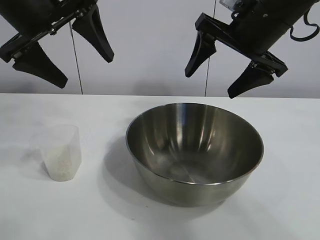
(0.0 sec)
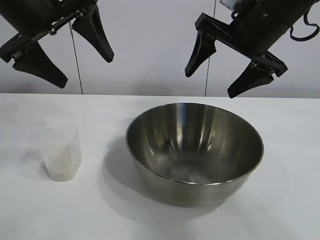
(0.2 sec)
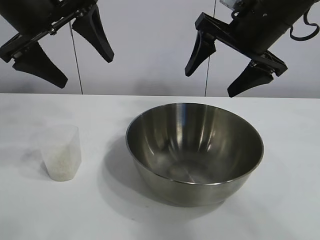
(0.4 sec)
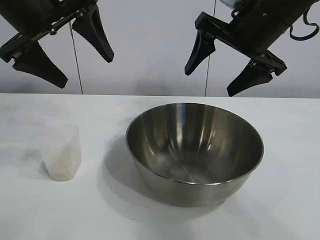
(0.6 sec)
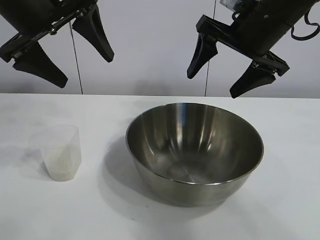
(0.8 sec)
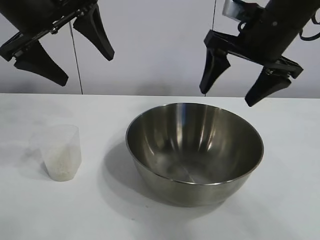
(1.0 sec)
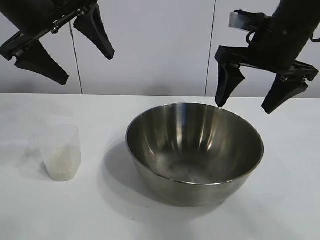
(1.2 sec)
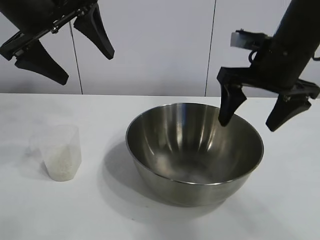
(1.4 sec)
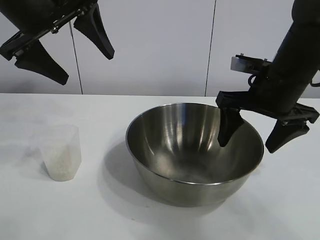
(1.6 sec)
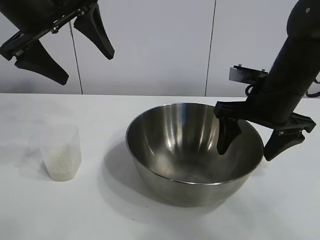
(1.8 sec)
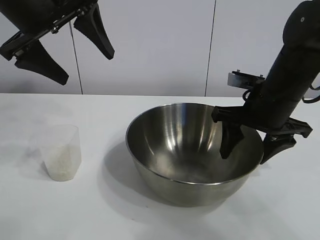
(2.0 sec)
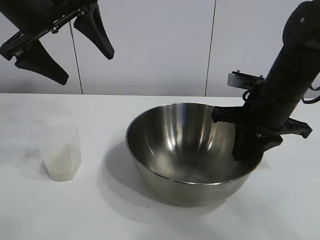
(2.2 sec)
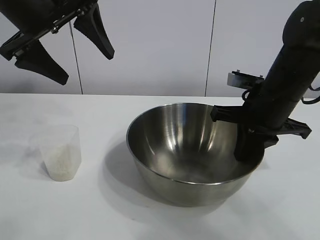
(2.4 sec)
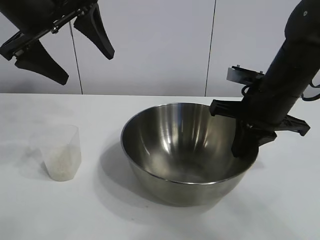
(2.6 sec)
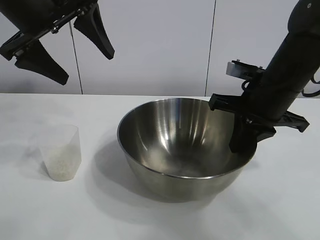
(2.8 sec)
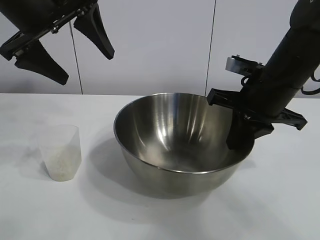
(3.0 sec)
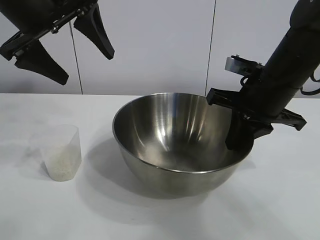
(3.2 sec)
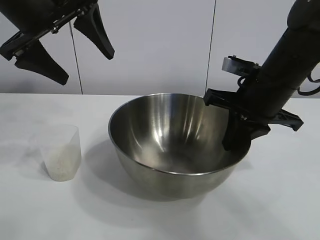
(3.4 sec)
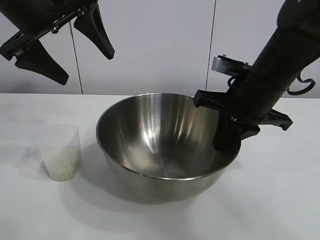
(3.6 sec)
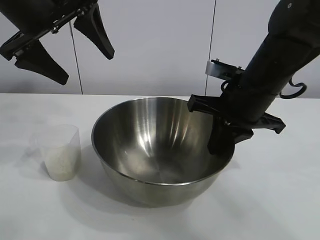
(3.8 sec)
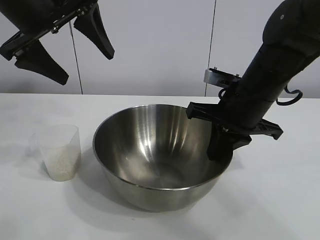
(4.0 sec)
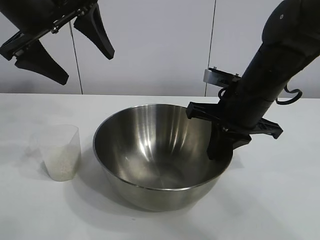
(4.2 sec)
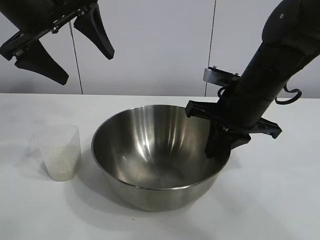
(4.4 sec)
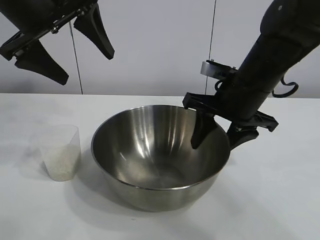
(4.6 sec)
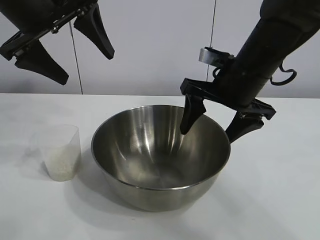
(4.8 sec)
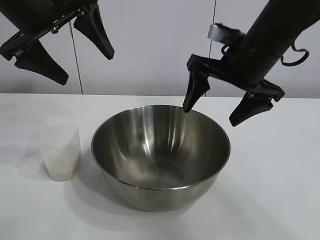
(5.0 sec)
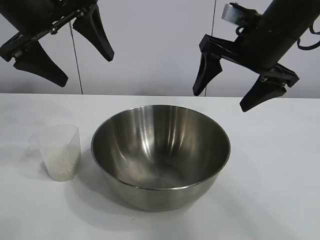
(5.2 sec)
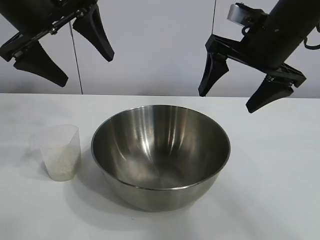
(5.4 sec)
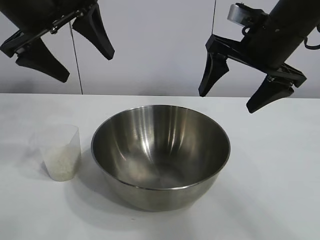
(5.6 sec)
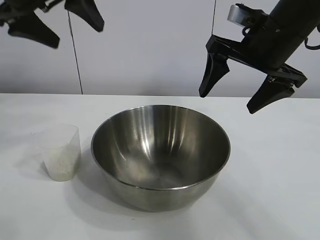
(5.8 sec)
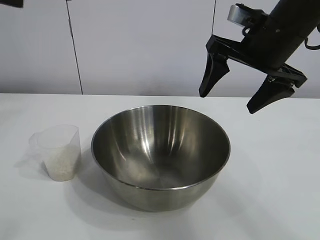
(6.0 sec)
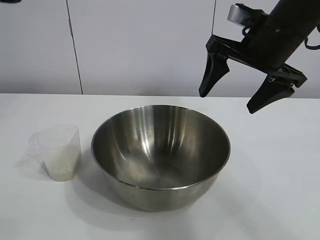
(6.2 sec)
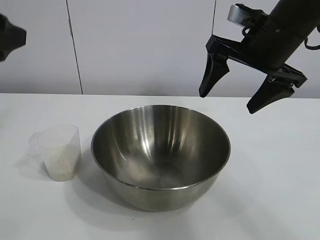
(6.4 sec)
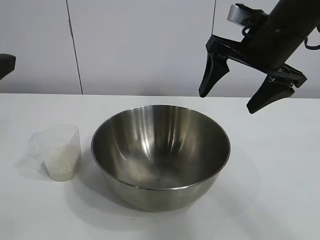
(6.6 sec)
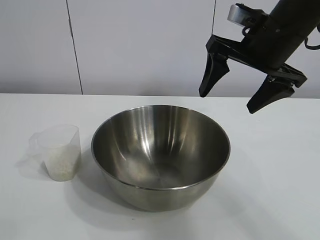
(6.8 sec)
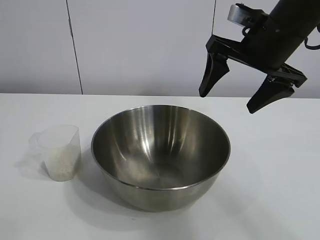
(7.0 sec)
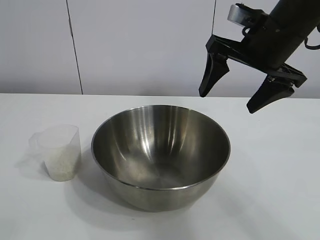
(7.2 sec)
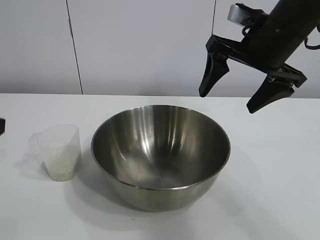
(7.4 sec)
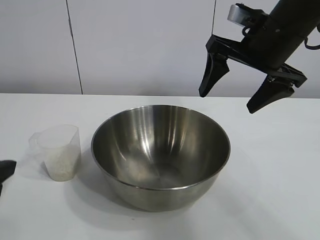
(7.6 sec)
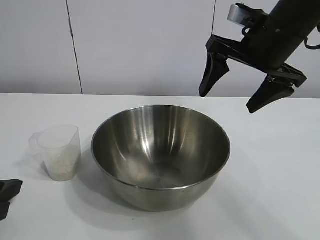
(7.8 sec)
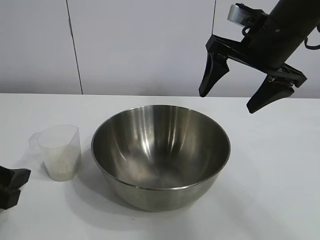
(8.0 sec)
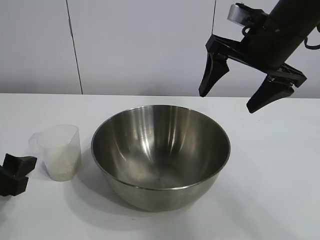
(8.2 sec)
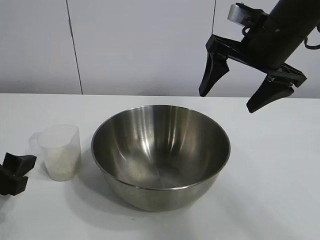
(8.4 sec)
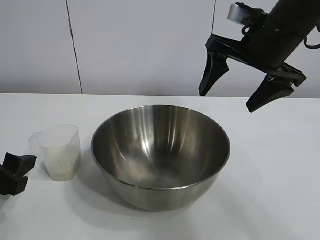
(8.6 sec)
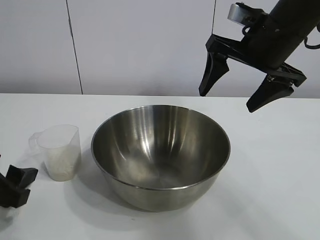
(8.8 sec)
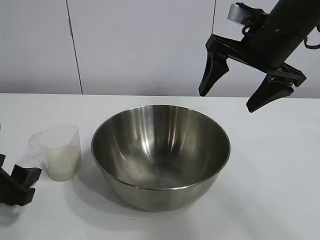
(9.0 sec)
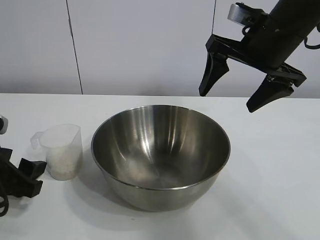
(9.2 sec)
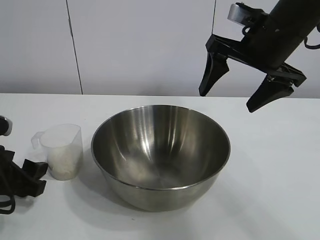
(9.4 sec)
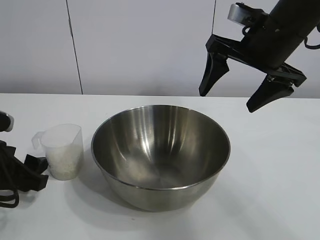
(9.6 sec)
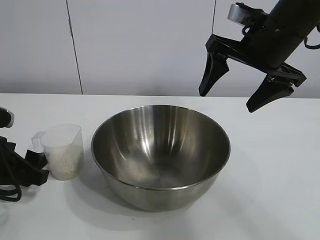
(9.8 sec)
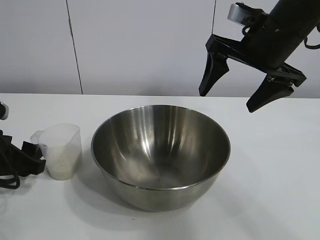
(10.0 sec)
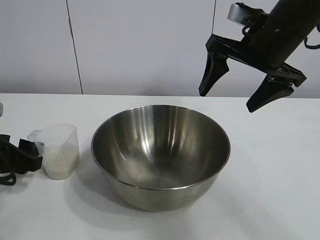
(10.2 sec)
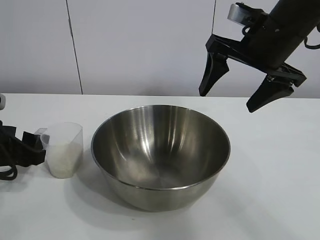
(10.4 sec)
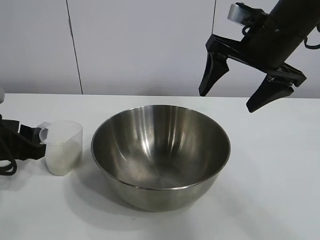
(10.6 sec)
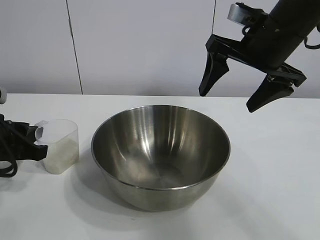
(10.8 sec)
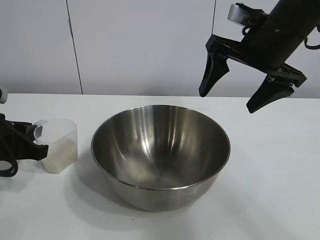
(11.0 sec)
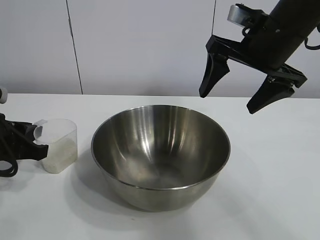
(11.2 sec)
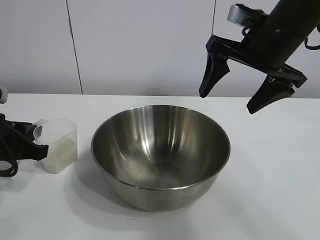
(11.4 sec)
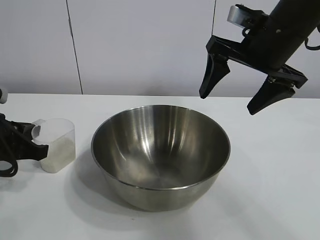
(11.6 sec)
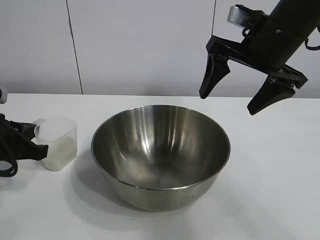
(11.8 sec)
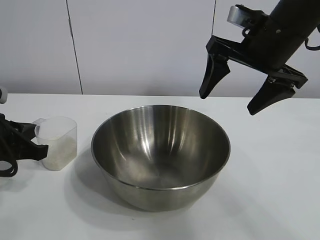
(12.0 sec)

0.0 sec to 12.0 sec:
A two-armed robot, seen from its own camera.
Task of the whole recording: the right gripper grasp the rice container and place it in the center of the table, the left gripper grasp the rice scoop and pour the rice into the rice container.
Step, 0.8 sec to 4.4 sec: Move the bowl in the center of view with right gripper.
Step, 4.6 sec to 11.8 sec: Grasp the cup with rice in it with left gripper.

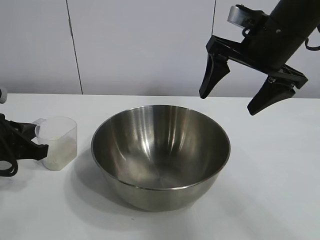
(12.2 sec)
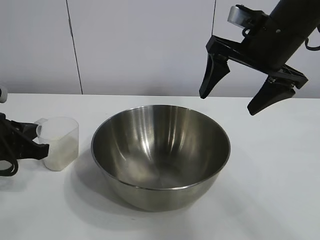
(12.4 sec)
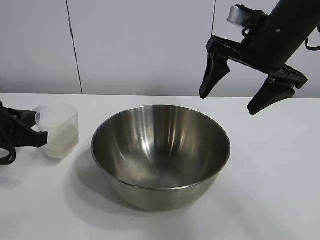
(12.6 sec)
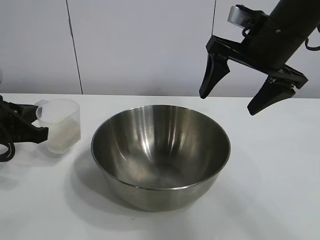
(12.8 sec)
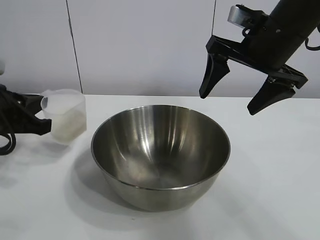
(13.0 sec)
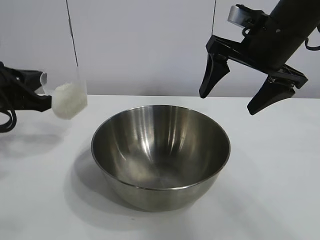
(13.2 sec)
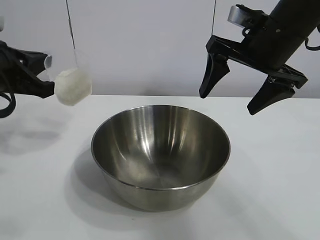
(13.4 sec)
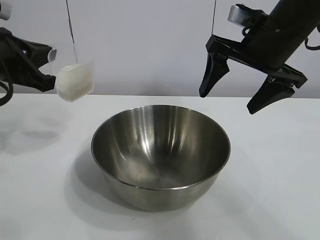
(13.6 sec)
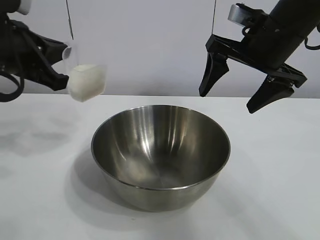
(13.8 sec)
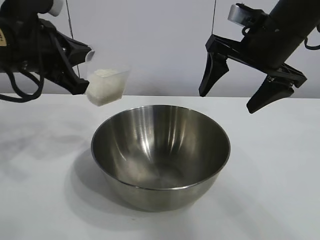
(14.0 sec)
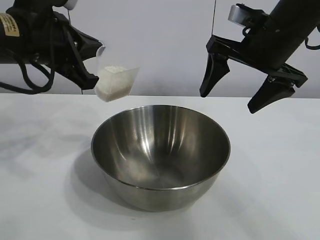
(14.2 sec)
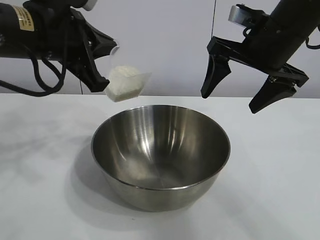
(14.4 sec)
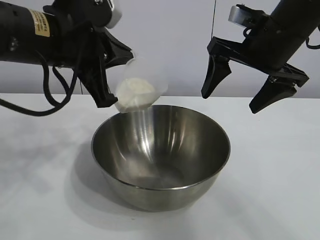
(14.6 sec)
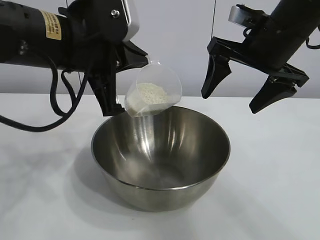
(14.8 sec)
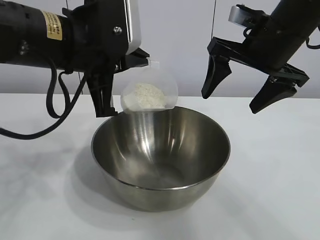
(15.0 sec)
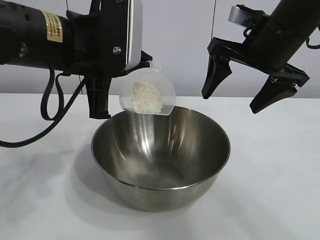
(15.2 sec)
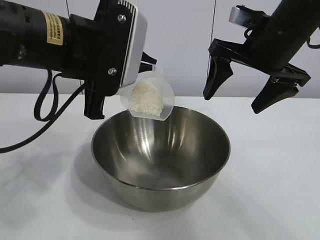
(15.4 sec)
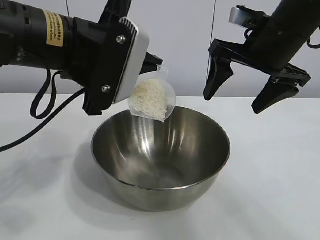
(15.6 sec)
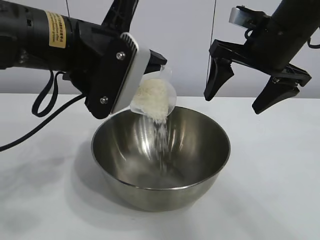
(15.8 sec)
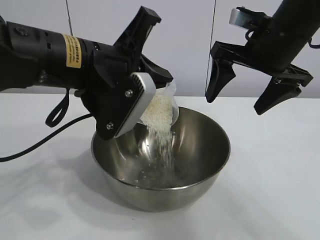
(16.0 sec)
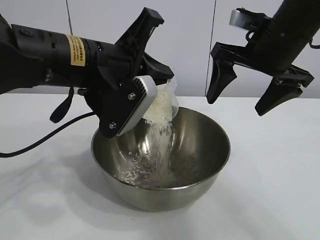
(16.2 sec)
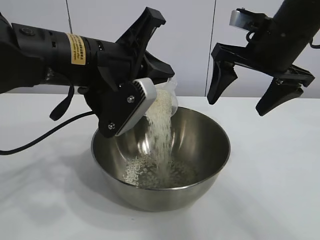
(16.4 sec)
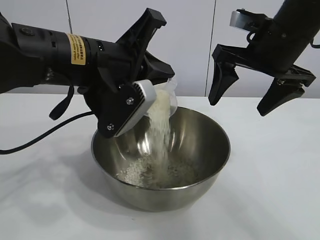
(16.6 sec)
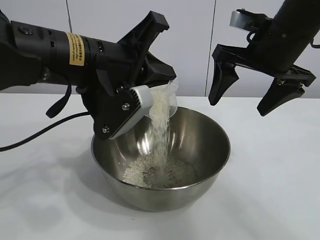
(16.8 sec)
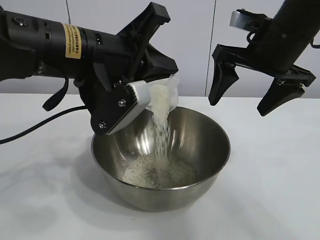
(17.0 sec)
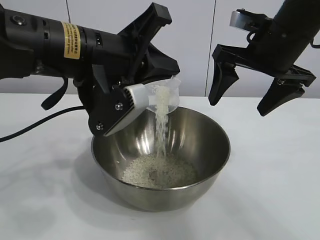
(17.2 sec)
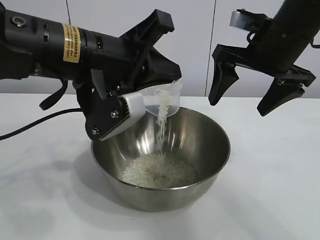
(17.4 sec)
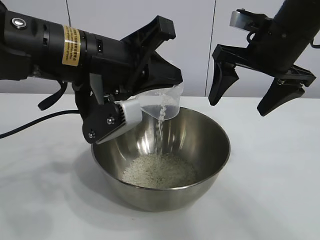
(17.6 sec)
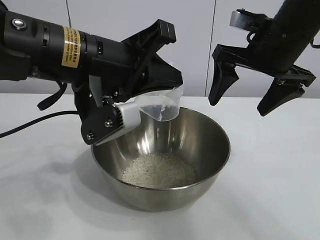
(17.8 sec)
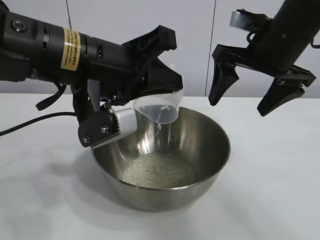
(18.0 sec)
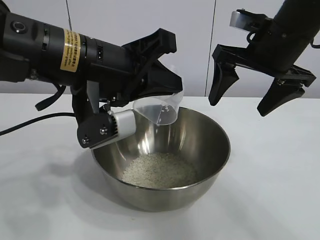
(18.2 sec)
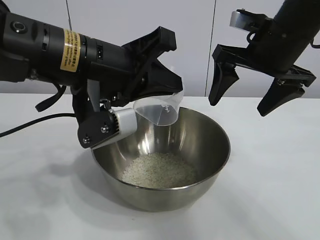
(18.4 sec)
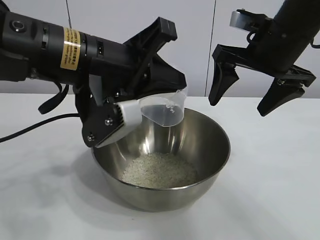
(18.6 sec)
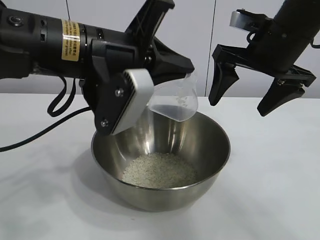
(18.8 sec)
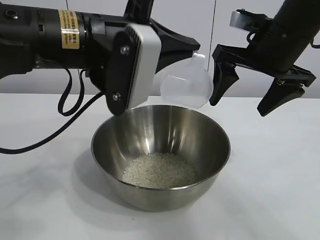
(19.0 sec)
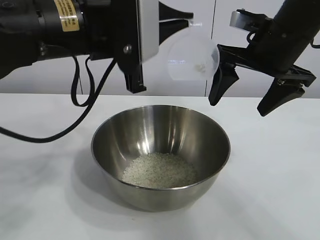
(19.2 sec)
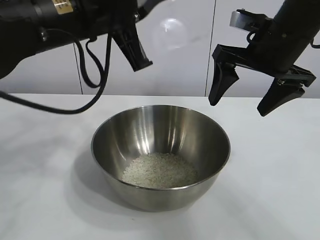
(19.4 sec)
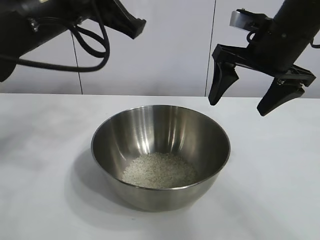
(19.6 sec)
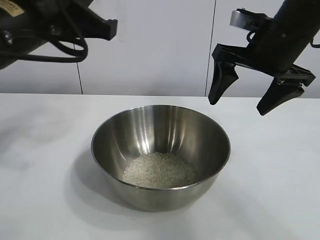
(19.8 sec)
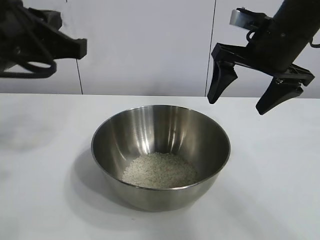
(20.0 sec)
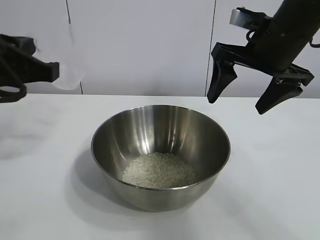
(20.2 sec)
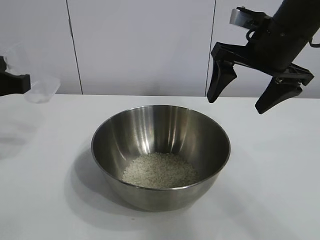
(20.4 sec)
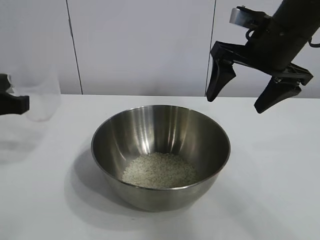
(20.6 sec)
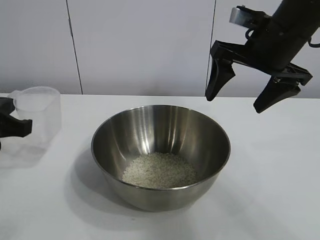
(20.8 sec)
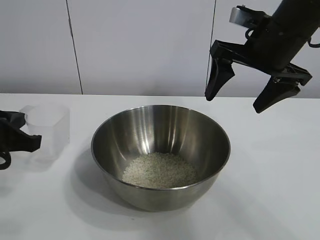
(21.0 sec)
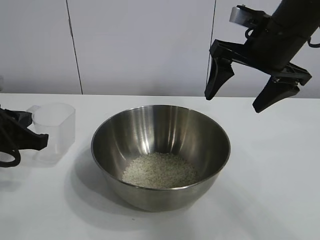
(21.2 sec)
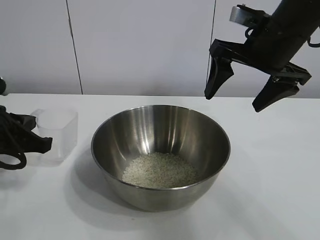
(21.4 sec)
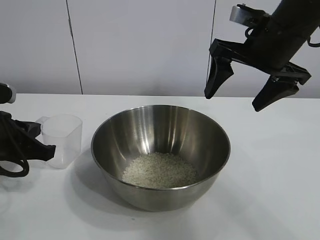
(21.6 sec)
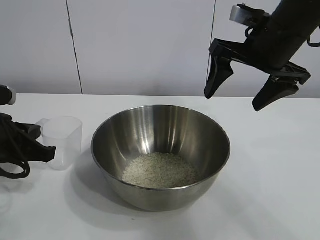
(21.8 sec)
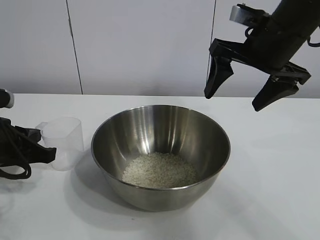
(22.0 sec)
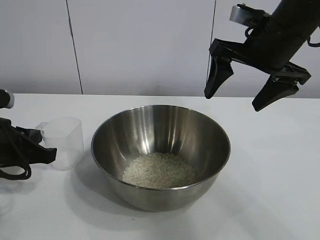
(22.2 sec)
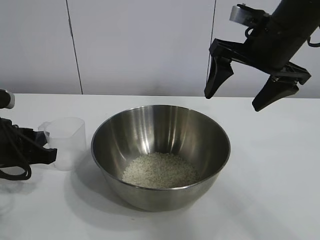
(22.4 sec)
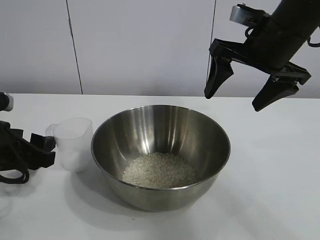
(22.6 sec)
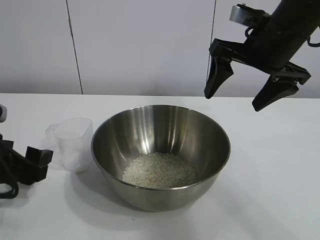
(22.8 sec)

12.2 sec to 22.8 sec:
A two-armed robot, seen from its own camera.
Task of the whole recording: the right gripper grasp the rice container and place it in the center of the table, the left gripper grasp the rice scoop and pour the rice into the rice container.
Step, 12.2 sec to 18.4 sec: Pour the rice from the cup into the bowl with the left gripper.
Step, 18.6 sec to 22.4 sec: Place the cup on the table with the left gripper.
